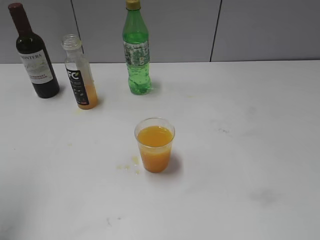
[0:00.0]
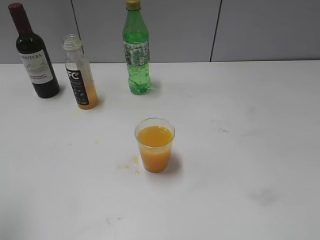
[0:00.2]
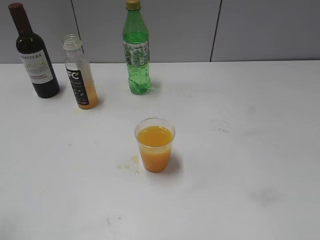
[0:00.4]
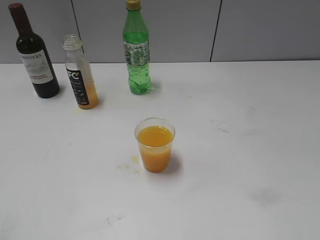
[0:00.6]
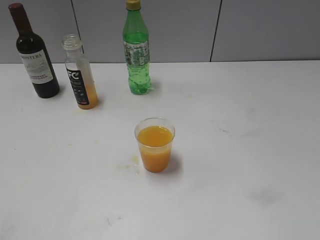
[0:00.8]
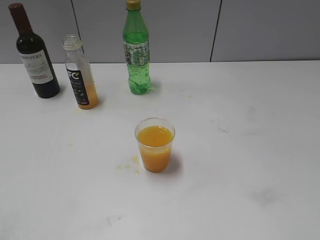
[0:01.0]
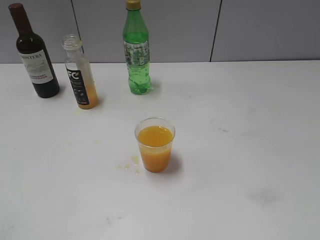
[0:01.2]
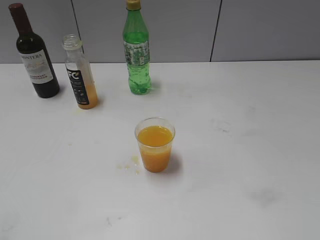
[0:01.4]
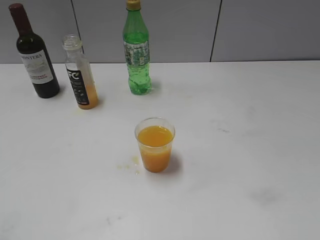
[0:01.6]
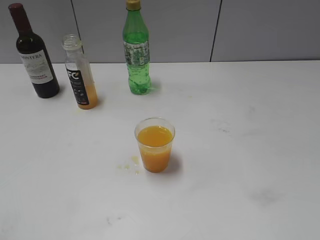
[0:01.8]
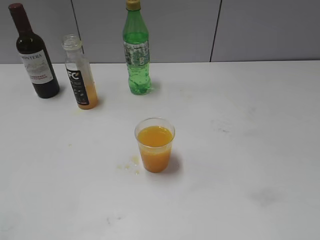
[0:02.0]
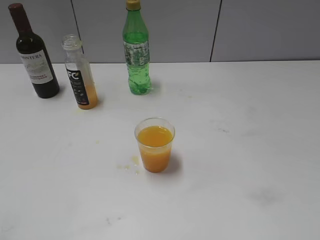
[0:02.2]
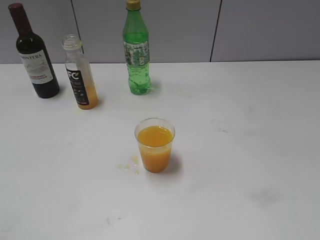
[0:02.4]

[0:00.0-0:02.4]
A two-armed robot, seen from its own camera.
0:00.0 to 0:01.2: The left gripper moves backward and downward, approximately 20 cm.
0:01.2 to 0:02.4: Both grippers stay put.

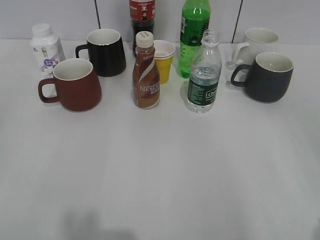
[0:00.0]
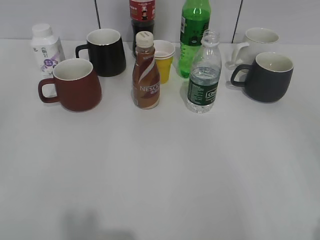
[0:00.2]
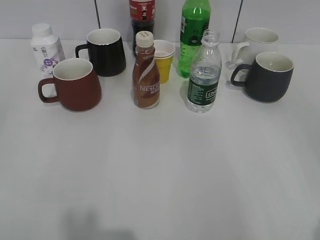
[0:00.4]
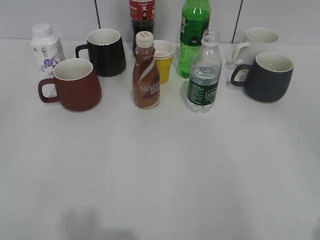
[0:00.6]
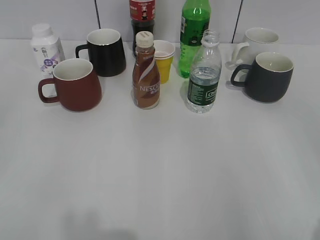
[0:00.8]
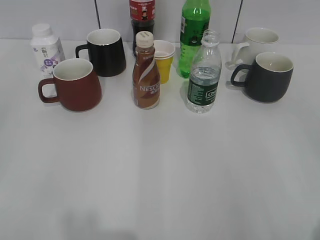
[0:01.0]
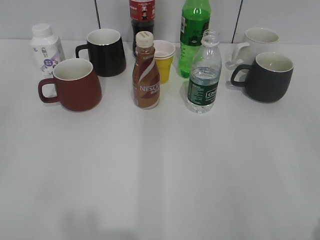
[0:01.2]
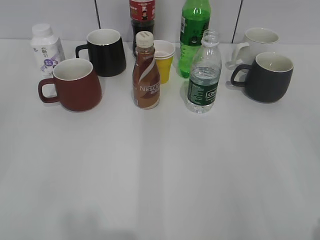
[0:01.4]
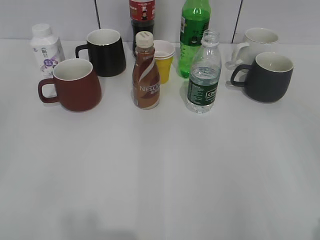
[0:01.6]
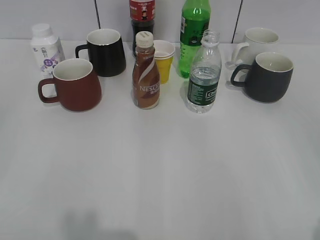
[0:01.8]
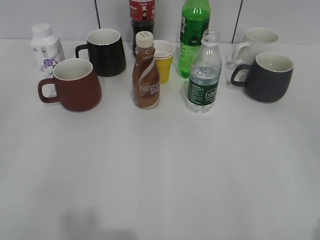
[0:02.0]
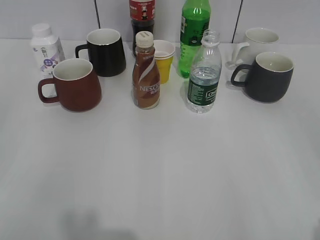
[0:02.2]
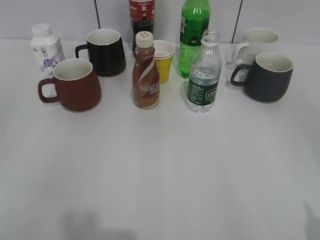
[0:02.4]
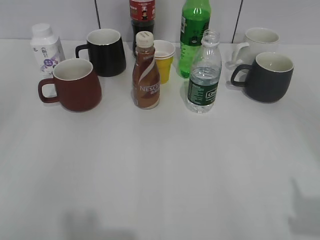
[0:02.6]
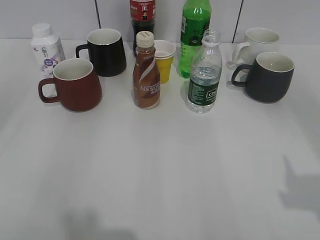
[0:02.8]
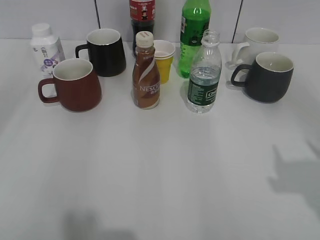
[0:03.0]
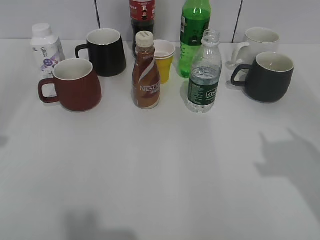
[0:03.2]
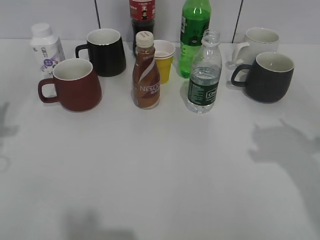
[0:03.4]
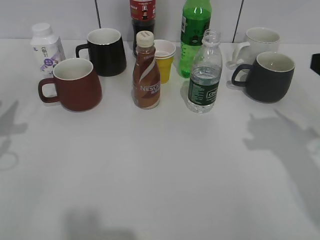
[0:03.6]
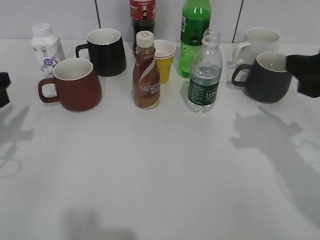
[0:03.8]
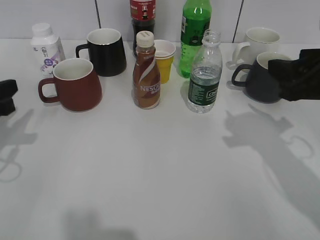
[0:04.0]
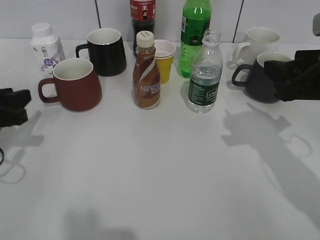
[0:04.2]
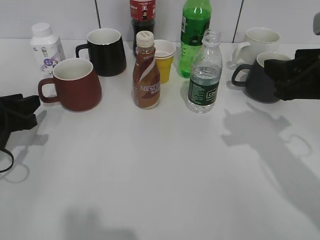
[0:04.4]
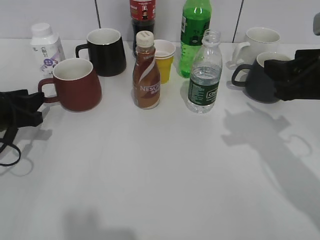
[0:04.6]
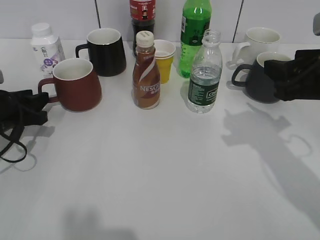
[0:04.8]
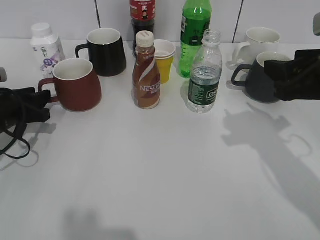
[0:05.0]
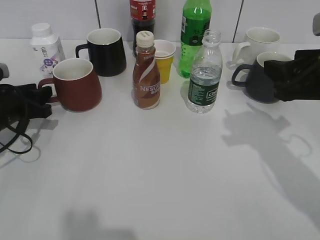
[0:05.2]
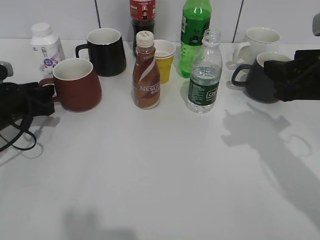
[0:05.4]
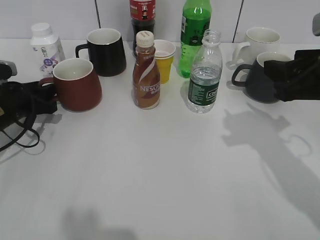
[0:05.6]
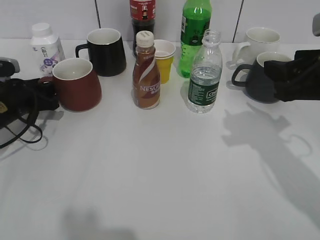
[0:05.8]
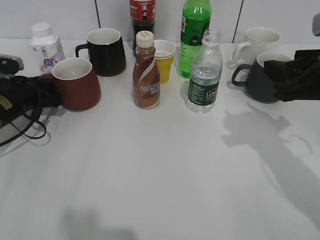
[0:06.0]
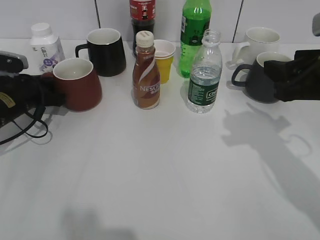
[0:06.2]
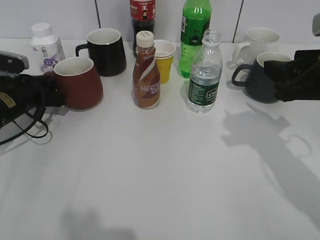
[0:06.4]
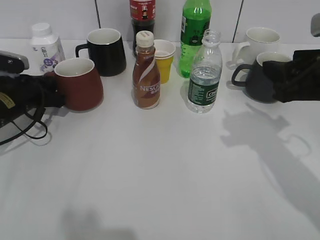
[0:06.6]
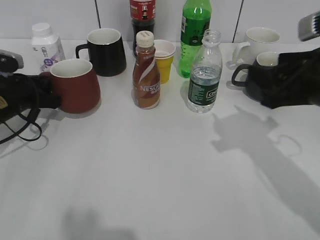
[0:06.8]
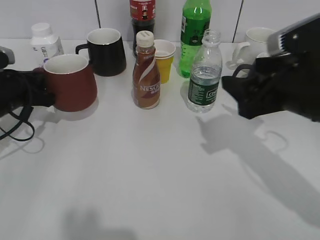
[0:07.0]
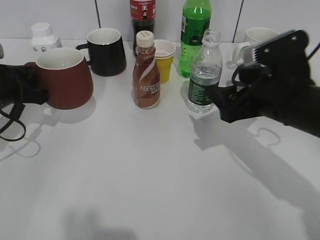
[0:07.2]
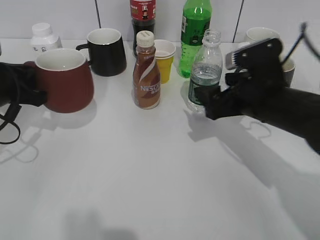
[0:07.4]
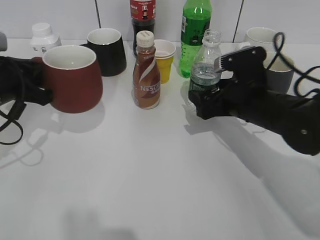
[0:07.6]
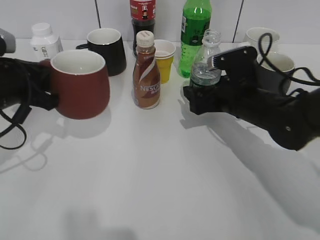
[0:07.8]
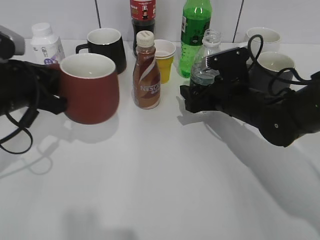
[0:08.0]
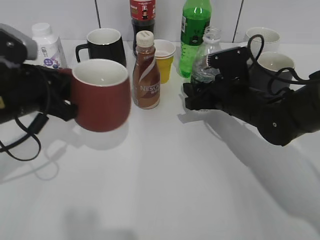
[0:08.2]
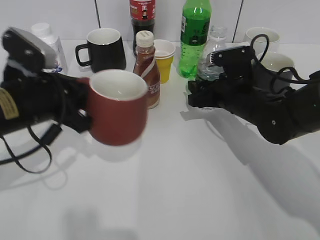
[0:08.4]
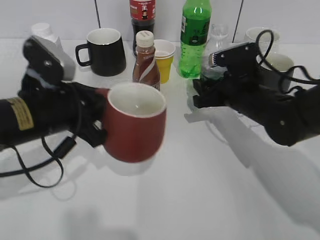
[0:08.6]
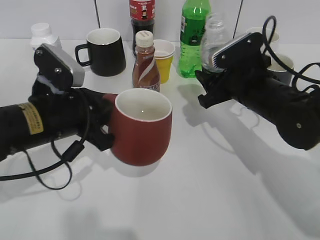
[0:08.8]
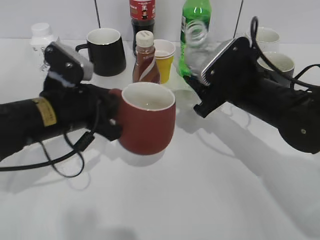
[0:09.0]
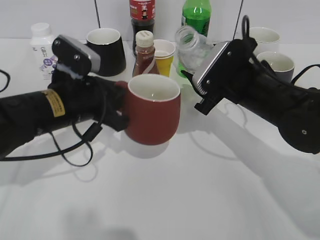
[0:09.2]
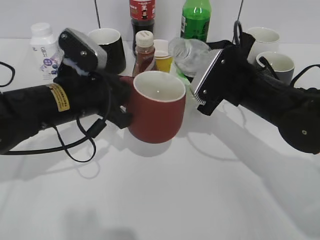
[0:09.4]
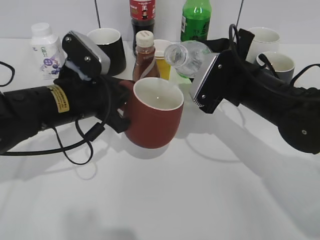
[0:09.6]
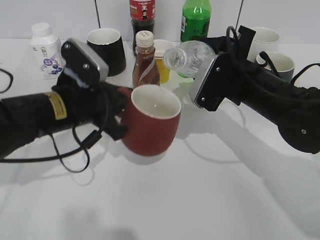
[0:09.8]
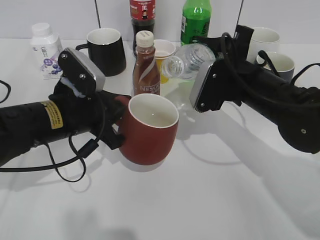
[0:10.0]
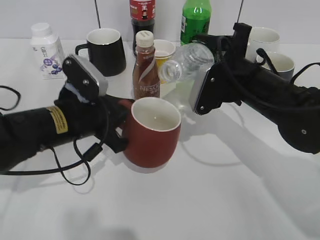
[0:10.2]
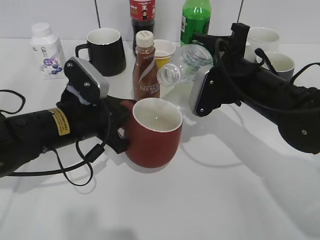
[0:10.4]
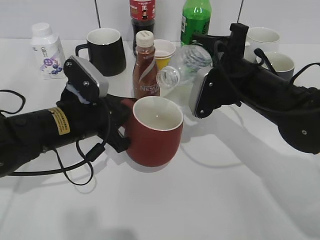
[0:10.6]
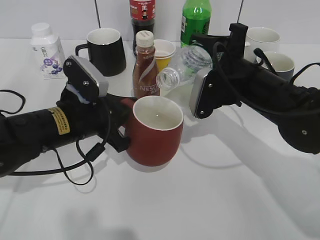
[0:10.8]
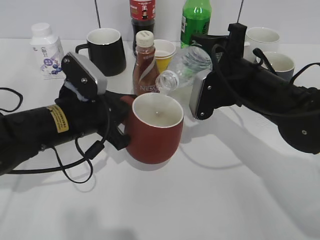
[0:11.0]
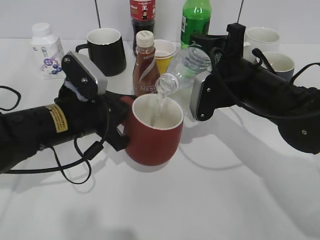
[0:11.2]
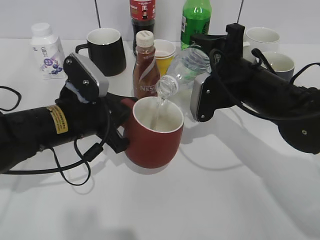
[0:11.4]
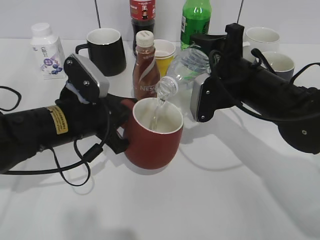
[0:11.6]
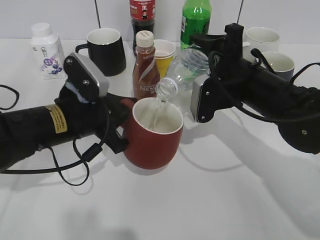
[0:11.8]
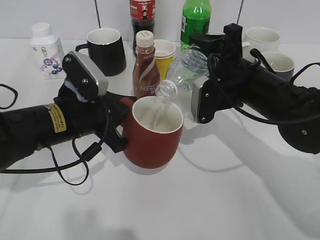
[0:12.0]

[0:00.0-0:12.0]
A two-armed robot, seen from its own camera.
Step, 0:02.2 to 0:06.0: Grasp the red cup with left gripper.
Step, 0:06.4 to 0:07.2: Lift the red cup with left gripper.
Step, 0:07.4 to 0:08.4: Grasp the bottle with water with right gripper.
0:01.6 to 0:03.0: The grippers both shift forward by approximately 10 cm.
0:03.0 to 0:04.4: The right gripper is displaced forward, downward and to the left by about 15 cm, and closes up, while the left gripper goes roughly 20 cm downward and forward.
0:04.4 to 0:06.0: The left gripper shifts approximately 10 cm forward.
0:06.0 to 0:07.6: The left gripper heads upward and backward, covering approximately 10 cm, and closes its fingers, while the right gripper shifts some 15 cm downward, forward and to the left, and opens.
0:07.6 to 0:09.0: The left gripper is displaced to the right by roughly 10 cm. Meanwhile the right gripper closes.
0:10.4 to 0:12.0: There are only small adjustments of the grippers.

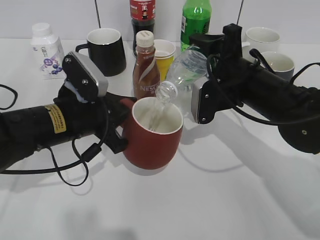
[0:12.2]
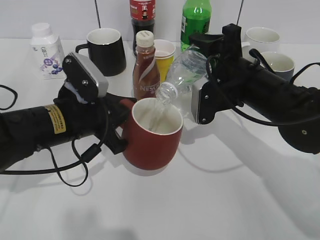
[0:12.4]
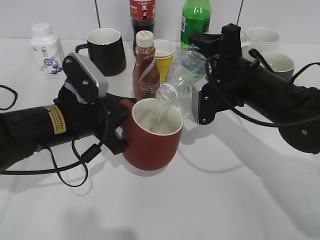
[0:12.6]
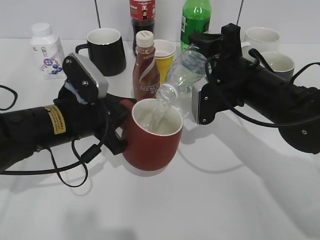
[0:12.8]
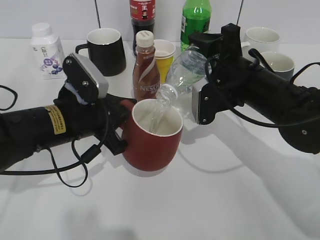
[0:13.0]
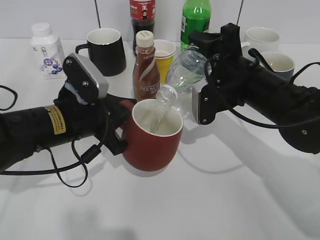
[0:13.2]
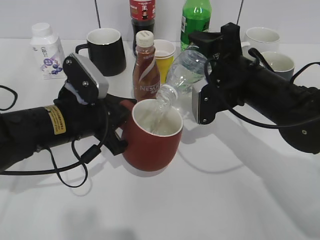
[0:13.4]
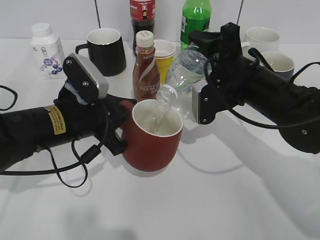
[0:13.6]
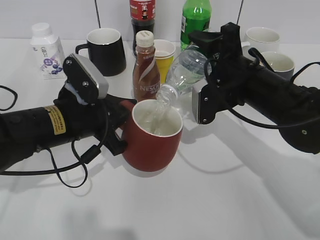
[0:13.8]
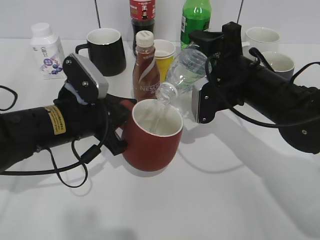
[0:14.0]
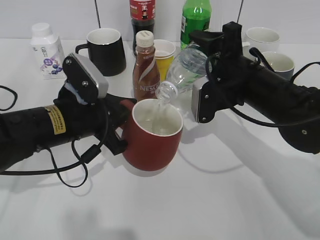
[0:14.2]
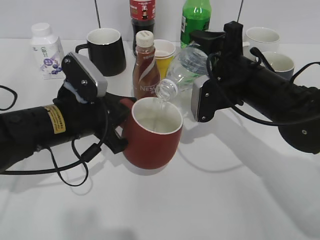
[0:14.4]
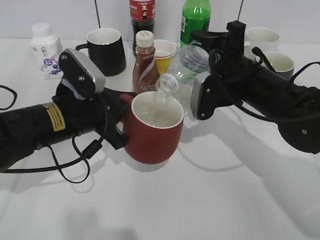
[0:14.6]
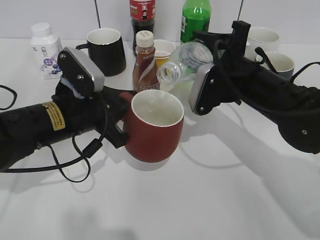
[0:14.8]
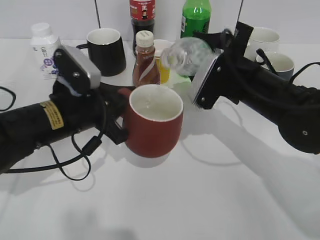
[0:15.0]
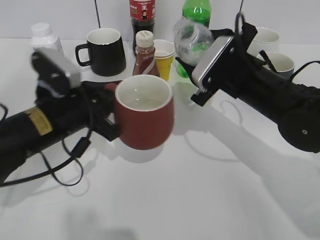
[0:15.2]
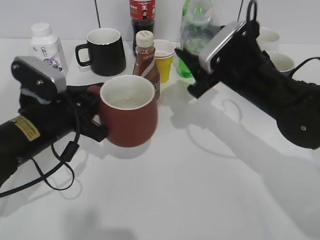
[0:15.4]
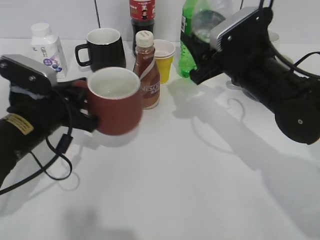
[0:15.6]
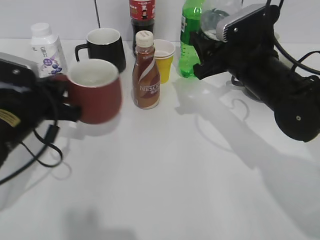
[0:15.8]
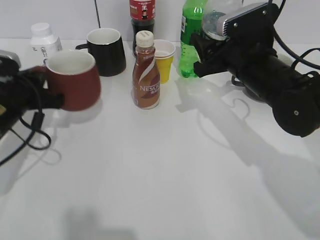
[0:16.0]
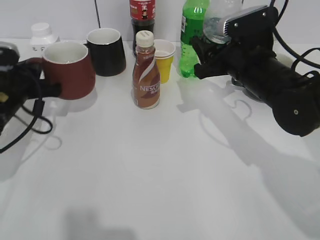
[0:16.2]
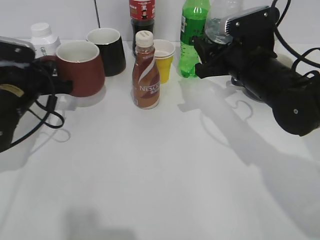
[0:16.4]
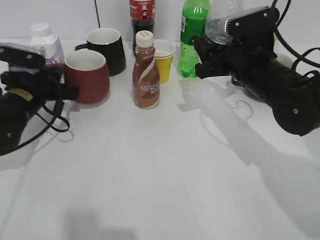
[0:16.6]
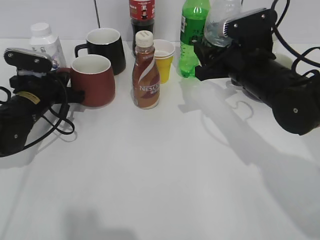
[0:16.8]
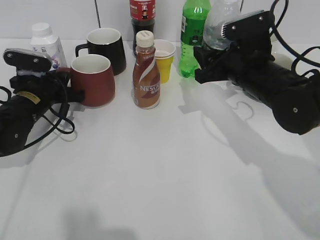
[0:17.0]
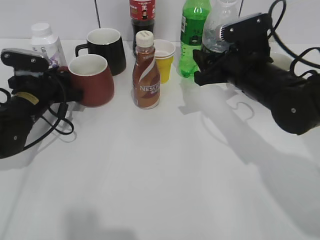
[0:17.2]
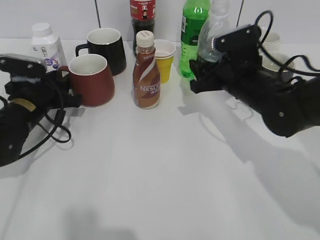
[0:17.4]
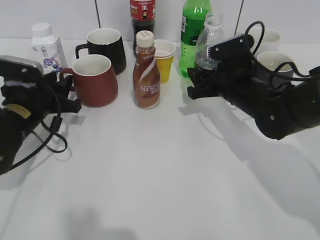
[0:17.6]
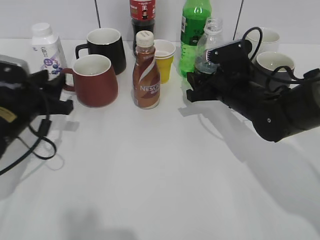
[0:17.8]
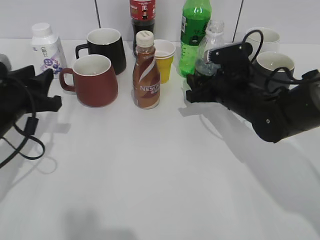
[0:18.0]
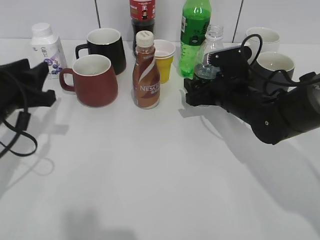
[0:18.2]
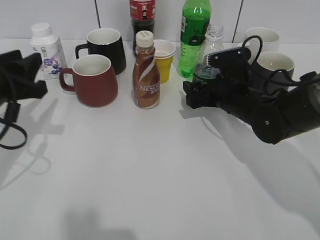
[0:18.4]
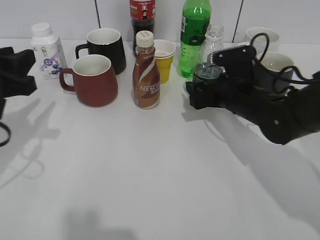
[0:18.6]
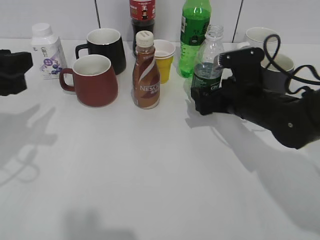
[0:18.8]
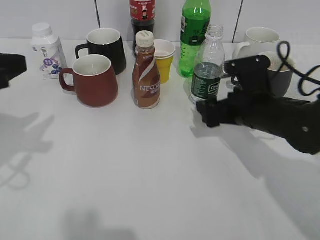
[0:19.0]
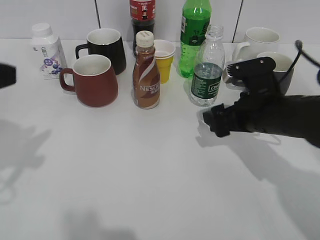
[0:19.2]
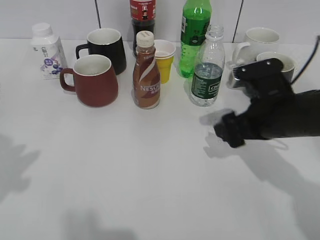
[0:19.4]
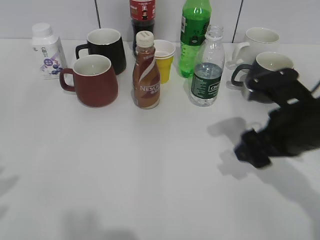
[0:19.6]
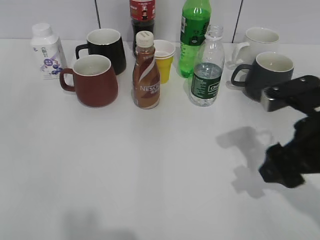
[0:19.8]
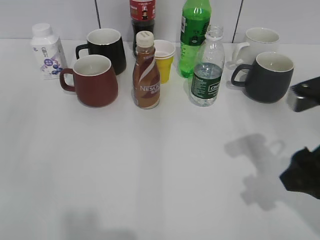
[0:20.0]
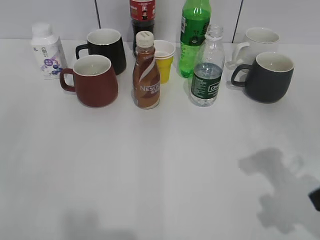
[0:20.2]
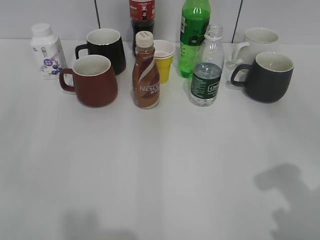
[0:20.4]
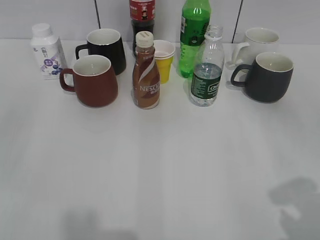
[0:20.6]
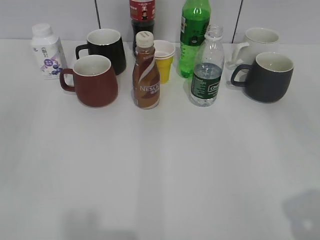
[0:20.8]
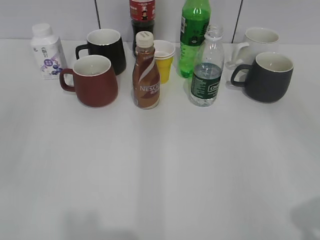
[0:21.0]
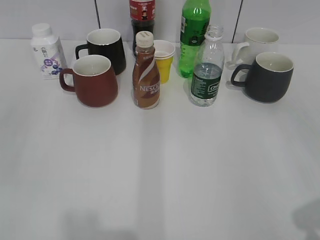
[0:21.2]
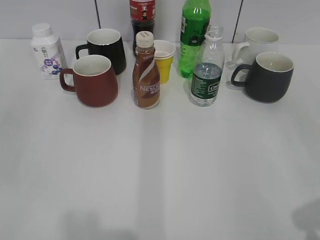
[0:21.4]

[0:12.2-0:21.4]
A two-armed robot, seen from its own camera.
Step, 0:12.2 to 0:14.8: Pour the water from bottle to cup with right gripper.
Step, 0:15.0 to 0:17.2: Place the red cup on the table with left gripper.
Step, 0:17.4 to 0:18.8: Place the water bottle on the table with right gripper.
0:12.2 to 0:13.8: The grippers stay close to where they were, moving slightly.
0:15.2 to 0:16.8: The left gripper is displaced forward, to the left and downward by approximately 15 cm.
0:16.8 to 0:18.4: The right gripper goes roughly 5 cm downward, and opens, while the left gripper moves backward and upward, some 15 cm, and opens its fingers.
0:18.4 to 0:19.8: The right gripper moves backward, upward and to the right, about 15 cm, and closes, while the left gripper goes roughly 20 cm backward and upward.
0:19.8 to 0:21.4: The right gripper heads backward, to the right and upward, covering roughly 20 cm.
